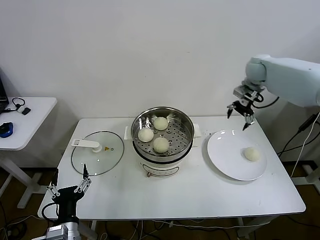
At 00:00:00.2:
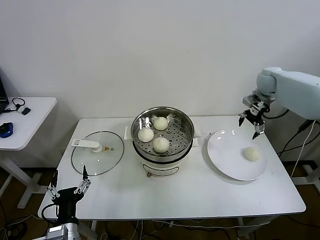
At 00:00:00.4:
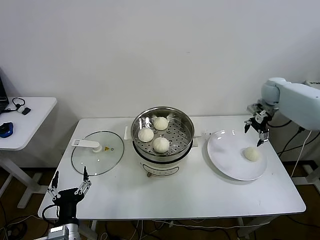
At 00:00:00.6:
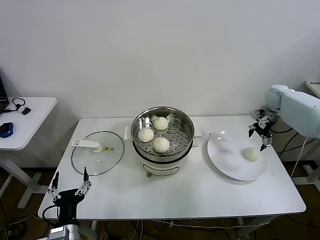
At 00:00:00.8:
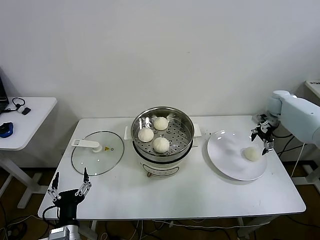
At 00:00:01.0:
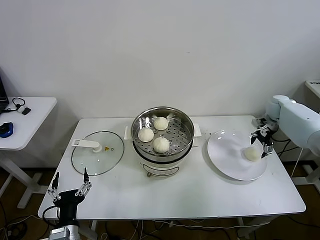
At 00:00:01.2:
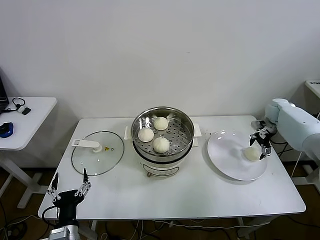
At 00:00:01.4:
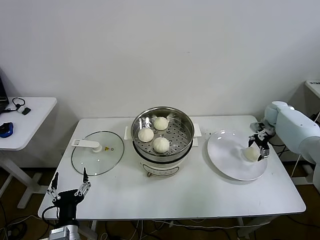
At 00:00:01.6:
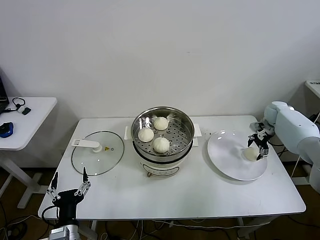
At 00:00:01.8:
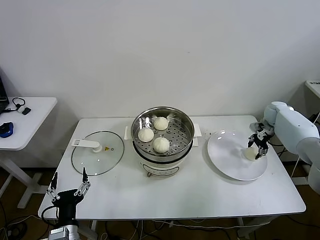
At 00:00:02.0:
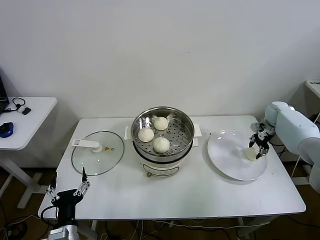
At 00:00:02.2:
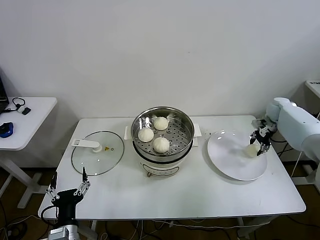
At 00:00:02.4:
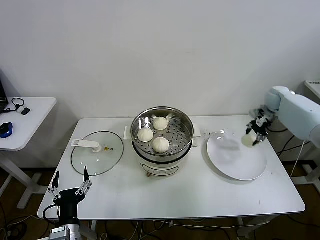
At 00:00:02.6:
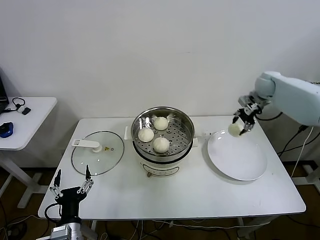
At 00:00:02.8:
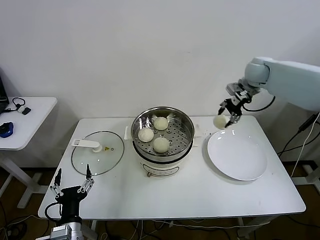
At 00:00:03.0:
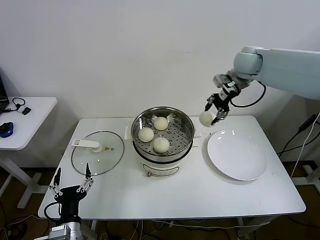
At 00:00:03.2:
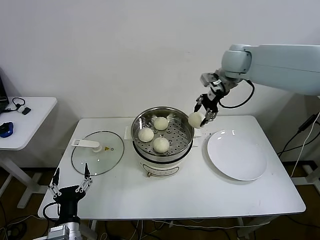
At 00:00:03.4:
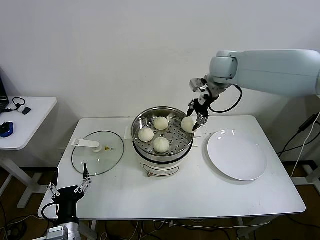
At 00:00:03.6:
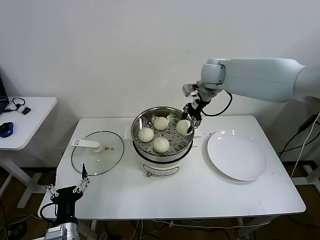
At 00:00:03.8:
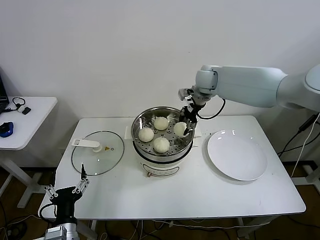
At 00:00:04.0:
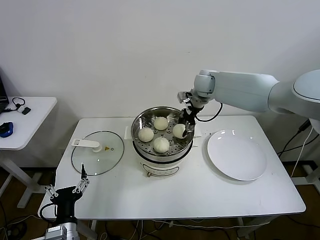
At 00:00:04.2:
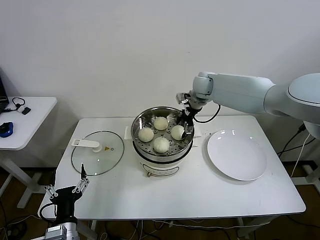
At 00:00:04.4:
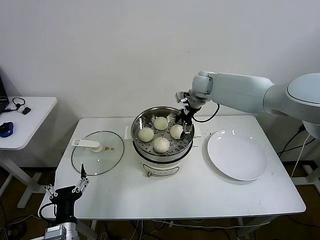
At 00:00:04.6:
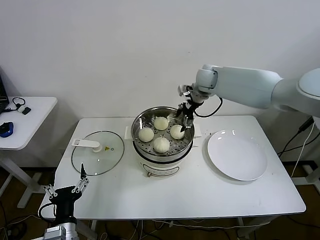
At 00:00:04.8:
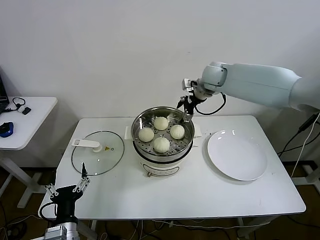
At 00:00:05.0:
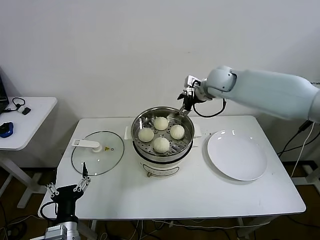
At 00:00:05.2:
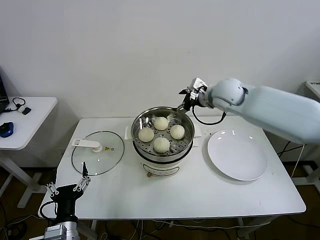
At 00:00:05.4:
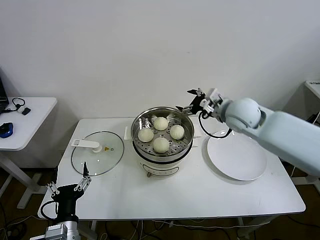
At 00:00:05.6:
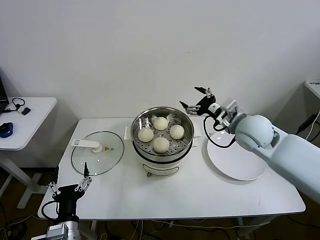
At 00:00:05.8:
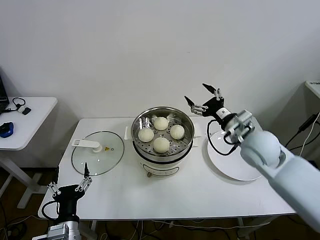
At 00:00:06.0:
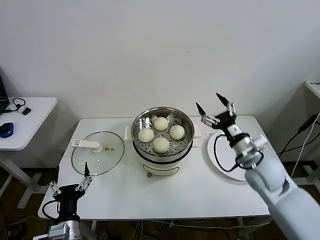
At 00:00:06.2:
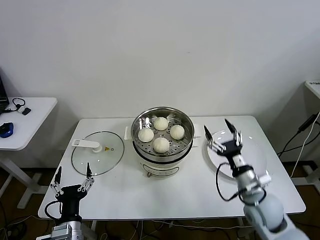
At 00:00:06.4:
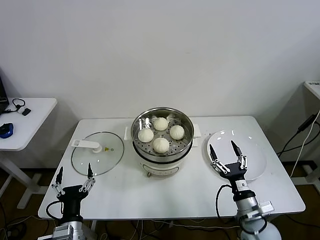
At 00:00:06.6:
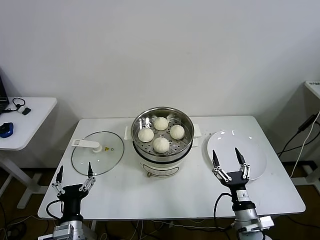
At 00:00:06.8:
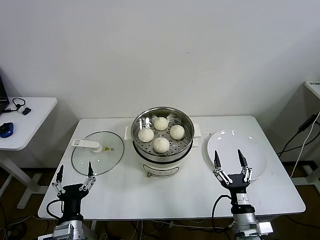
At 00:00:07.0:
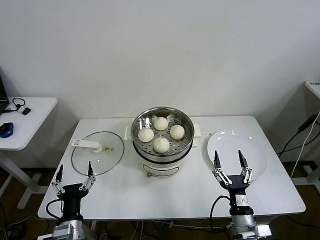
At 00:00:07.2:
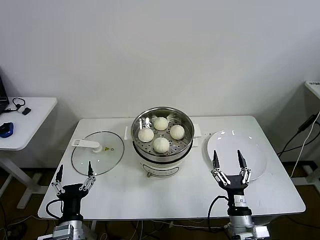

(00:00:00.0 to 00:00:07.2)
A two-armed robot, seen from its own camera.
Step, 00:00:00.0 - 00:00:01.8: Grasp the baozi in the plate with right gripper.
Step, 00:00:02.0 - 00:00:04.6: Place the baozi on the steamer with right gripper.
00:00:00.0 - 00:00:01.4: The right gripper heads downward and to the right, covering some 25 cm.
00:00:01.4 - 00:00:02.8: The right gripper shifts roughly 25 cm upward and to the left, and closes up.
00:00:02.8 - 00:00:04.4: The right gripper is displaced to the left by roughly 20 cm, and opens its fingers.
00:00:04.4 - 00:00:05.8: The right gripper shifts roughly 25 cm backward and to the right.
00:00:05.8 - 00:00:07.2: The right gripper travels backward and downward by approximately 30 cm.
